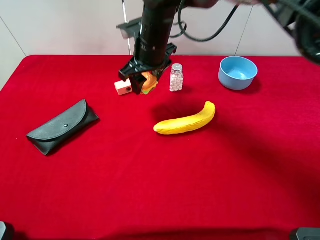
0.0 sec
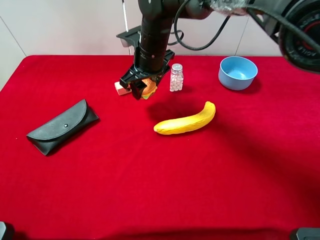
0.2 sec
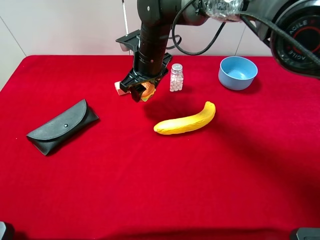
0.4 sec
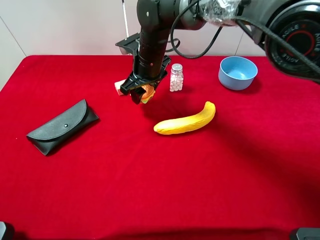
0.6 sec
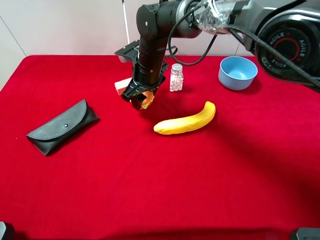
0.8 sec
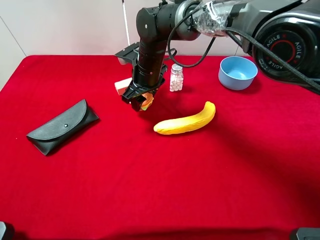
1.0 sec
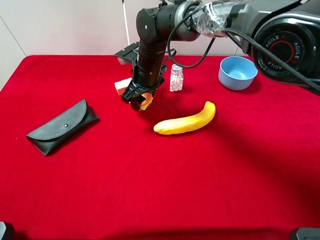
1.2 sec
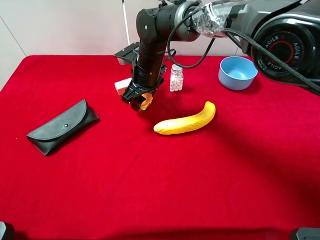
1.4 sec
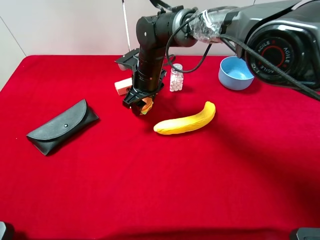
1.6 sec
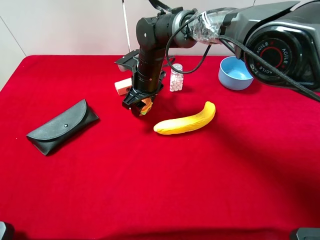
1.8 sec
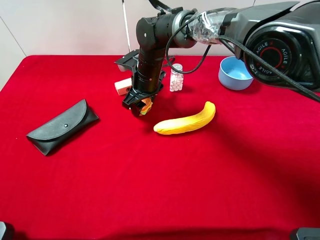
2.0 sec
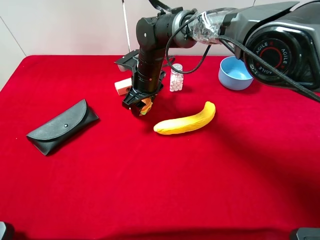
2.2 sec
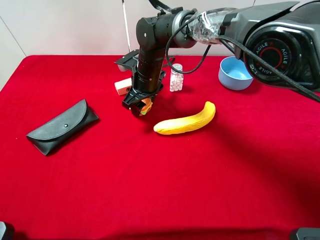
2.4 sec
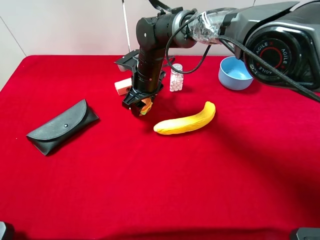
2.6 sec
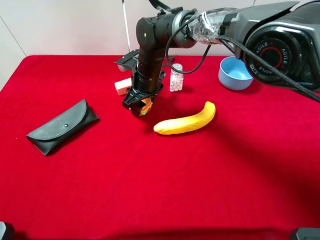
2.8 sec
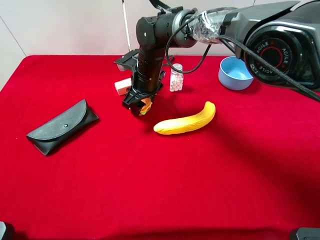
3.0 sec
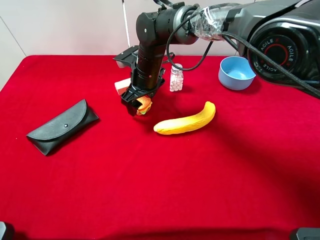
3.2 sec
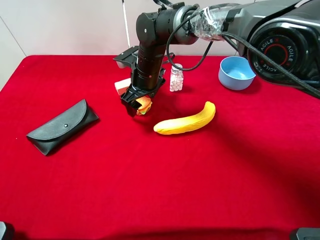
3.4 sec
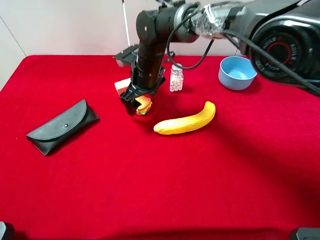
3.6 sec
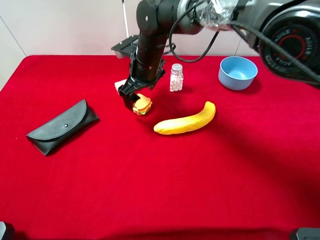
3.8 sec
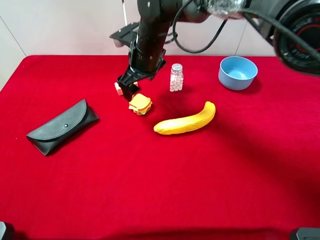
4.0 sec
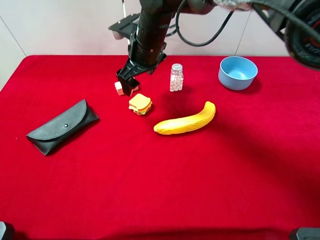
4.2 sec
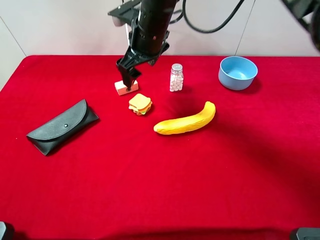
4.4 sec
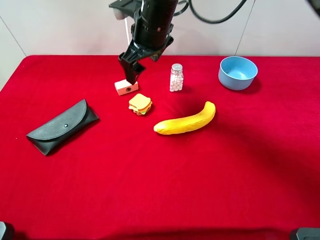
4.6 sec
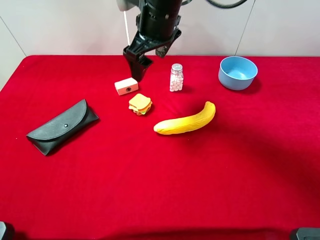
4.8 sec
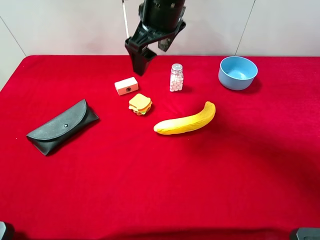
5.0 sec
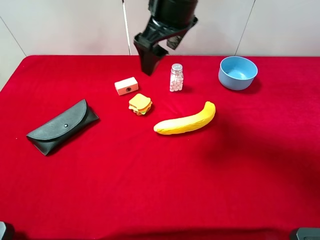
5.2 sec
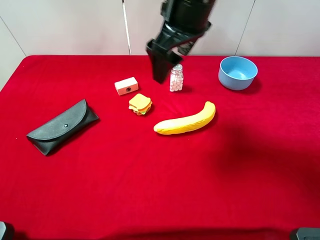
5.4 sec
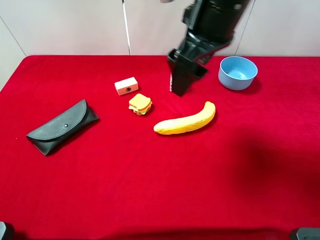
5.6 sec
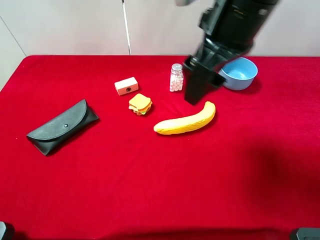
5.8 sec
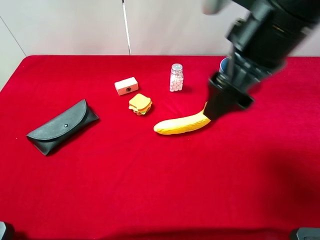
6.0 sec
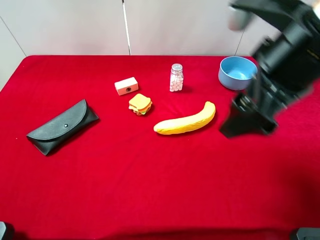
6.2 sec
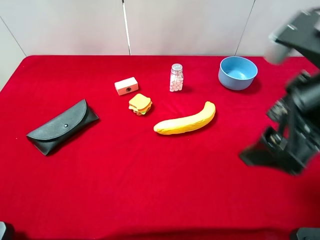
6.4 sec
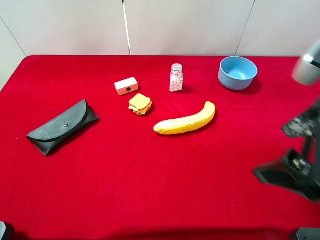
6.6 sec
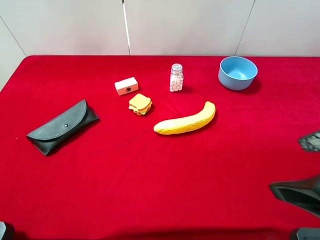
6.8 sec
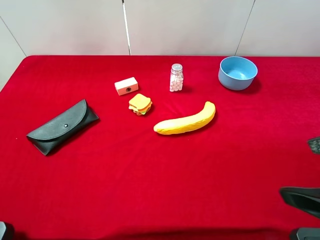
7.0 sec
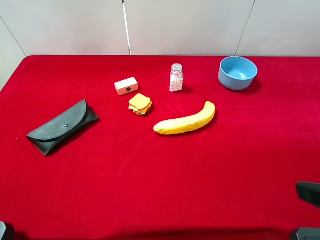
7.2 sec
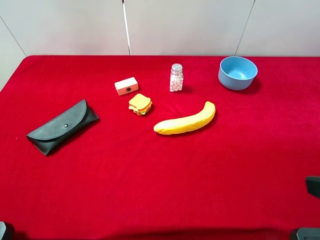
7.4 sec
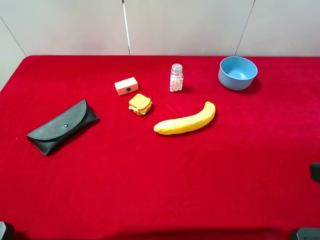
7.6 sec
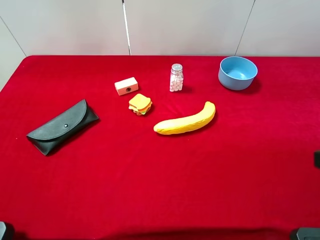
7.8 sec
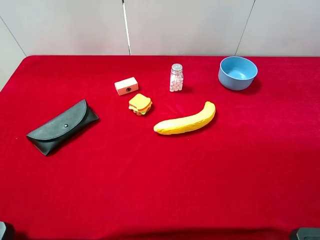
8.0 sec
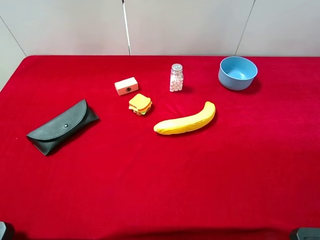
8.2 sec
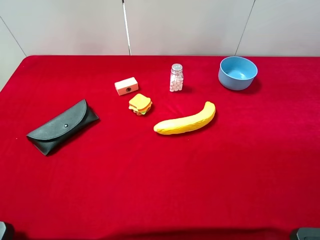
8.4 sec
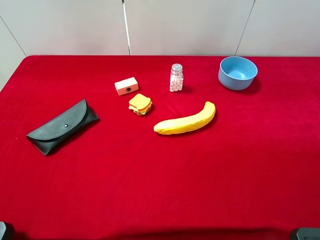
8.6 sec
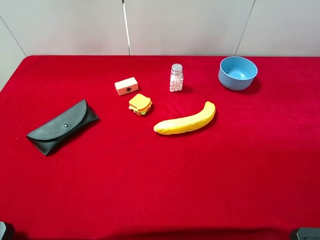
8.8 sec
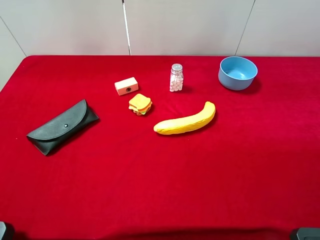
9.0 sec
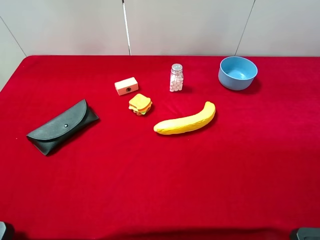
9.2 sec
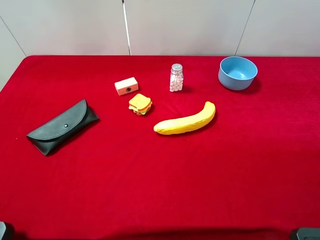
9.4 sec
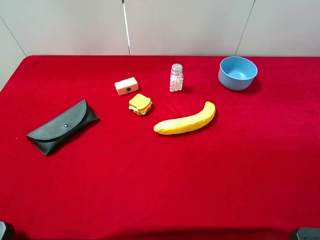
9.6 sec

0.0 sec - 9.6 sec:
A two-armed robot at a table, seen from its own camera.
Task of the whole recording: the gripper move the object.
Step, 0.0 sec - 4.2 sec: Place the sandwich on the table with the right gripper.
0.0 sec - 1.6 sec: The right gripper moves downward, about 10 cm.
1.6 sec - 3.2 sec: The right gripper opens up.
3.2 sec - 4.8 sec: The right gripper moves upward, about 15 cm.
4.8 sec - 6.4 sec: The right gripper is displaced backward and to the right by roughly 30 cm.
6.4 sec - 8.0 sec: The right gripper travels to the right and backward by approximately 15 cm.
